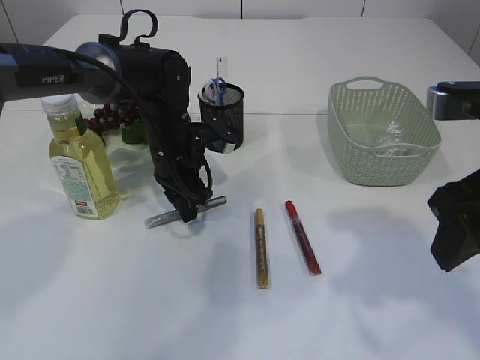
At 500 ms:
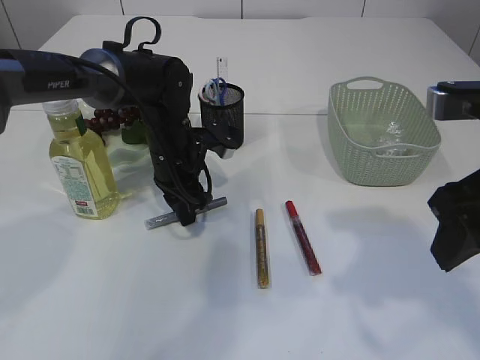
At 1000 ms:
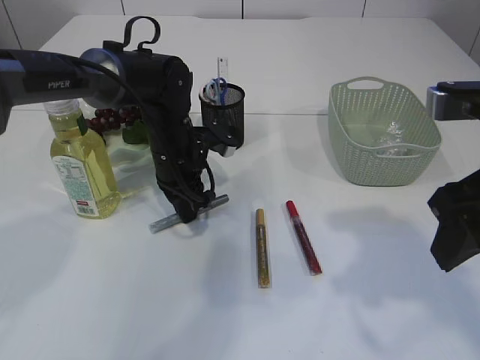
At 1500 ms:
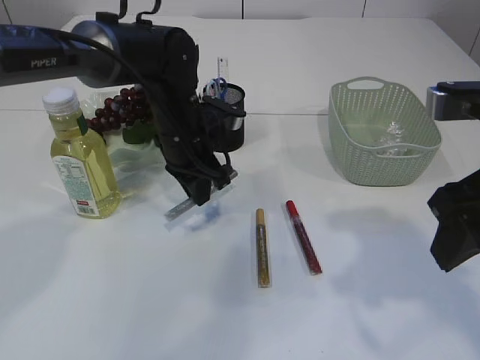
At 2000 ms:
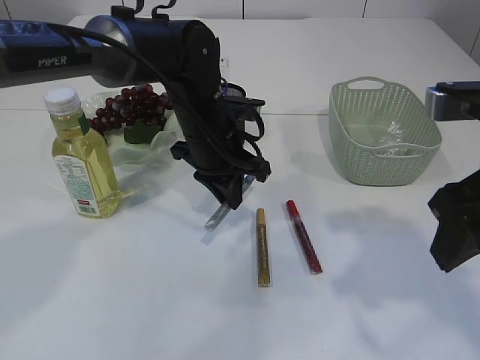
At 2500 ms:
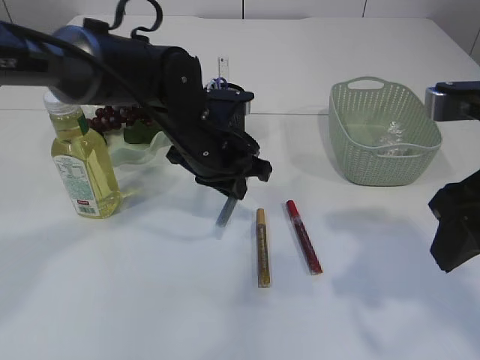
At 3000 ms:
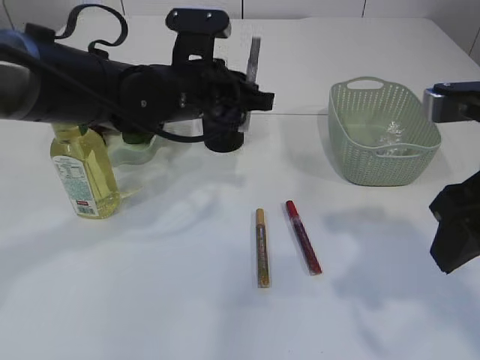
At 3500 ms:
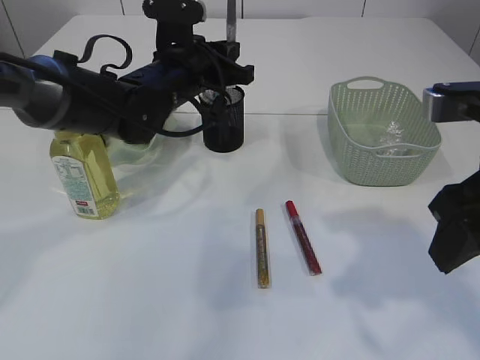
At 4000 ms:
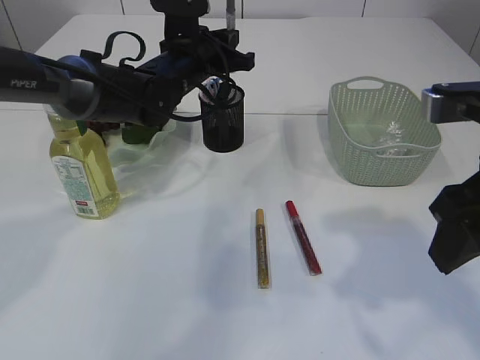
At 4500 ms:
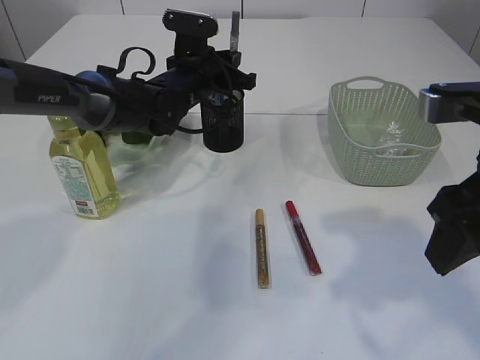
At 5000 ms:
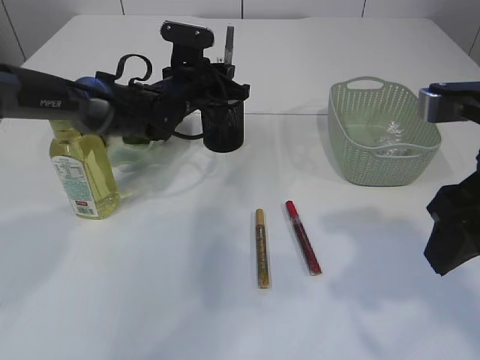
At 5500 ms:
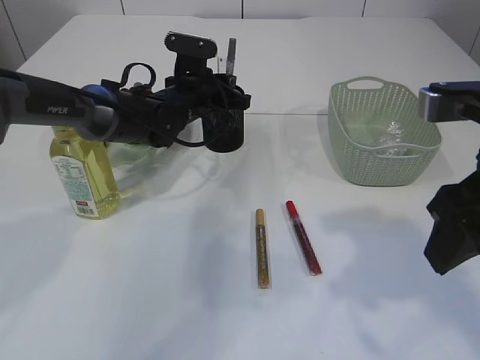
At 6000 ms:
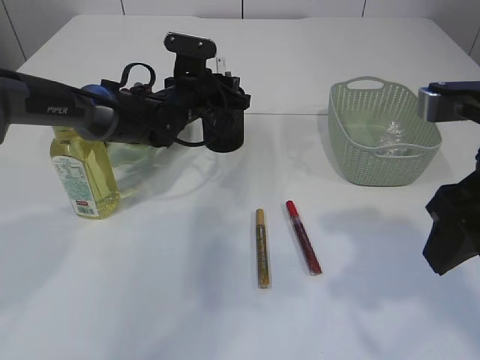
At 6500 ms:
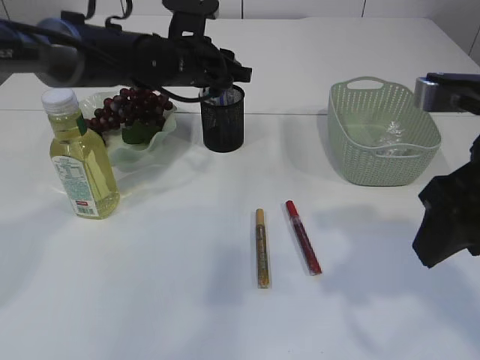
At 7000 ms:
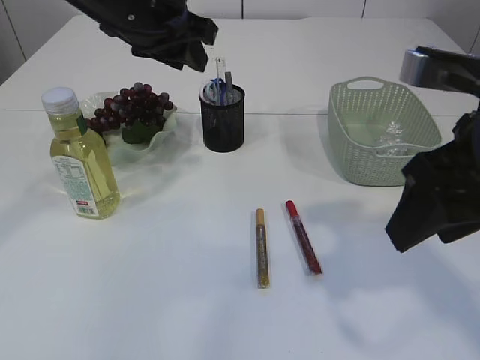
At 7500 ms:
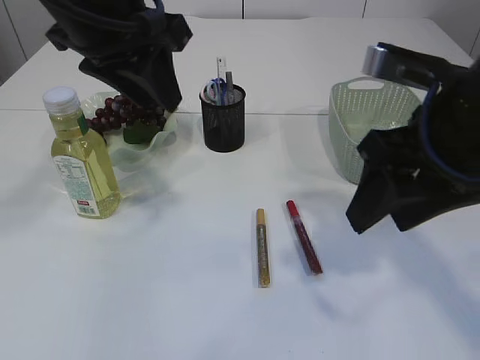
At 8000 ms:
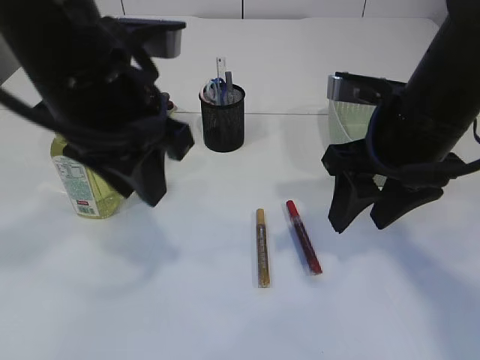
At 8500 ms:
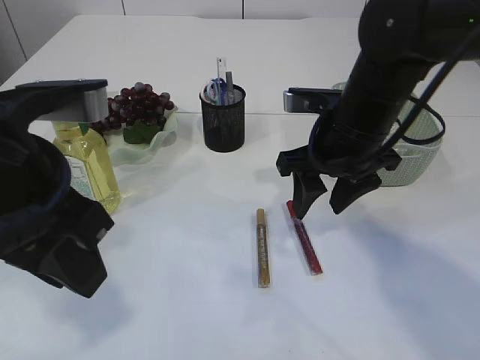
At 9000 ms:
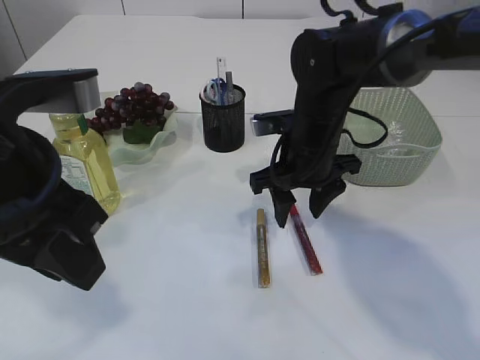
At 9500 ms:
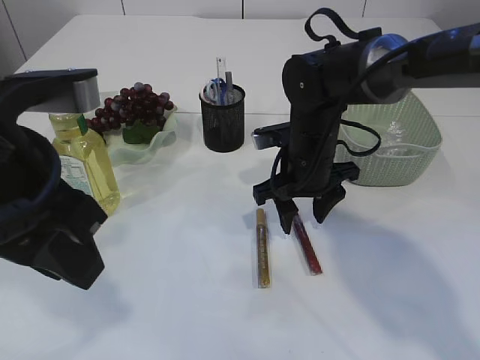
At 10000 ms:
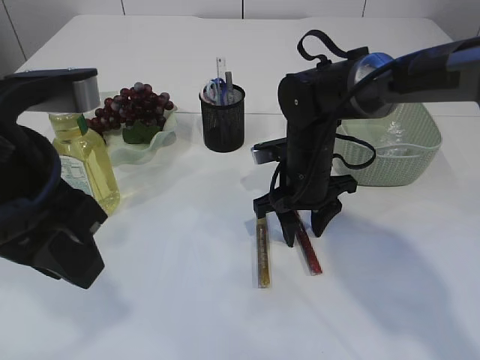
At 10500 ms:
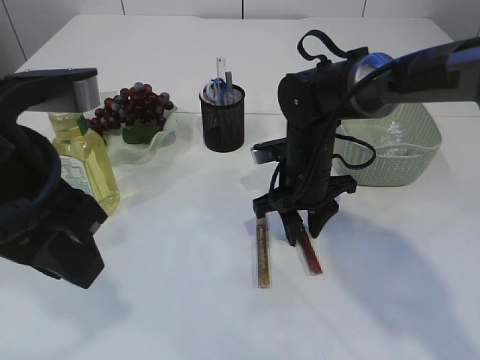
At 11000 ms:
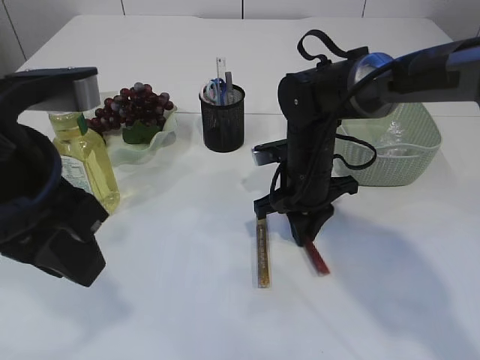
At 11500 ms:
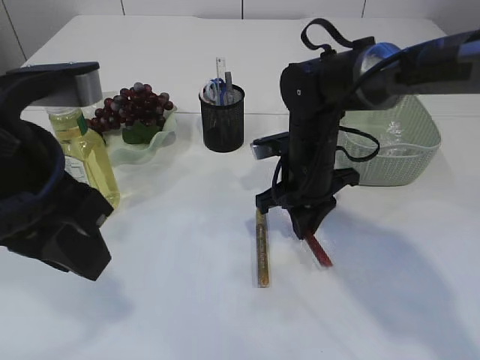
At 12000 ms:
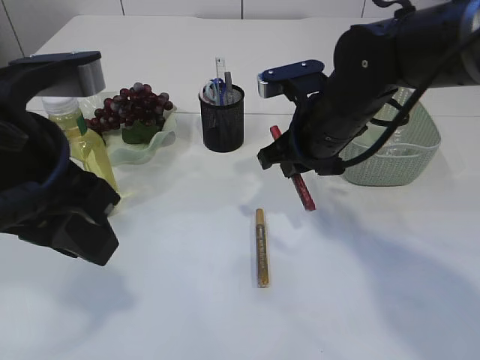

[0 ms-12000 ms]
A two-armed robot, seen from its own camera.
Step, 2000 ms to 6500 ms: place the silver glue into the pen holder.
Step, 7000 ms to 11500 ms: pick up the red glue.
0 ms to 2000 ms: The left gripper shifts approximately 5 cm to the right, and closes its fingers.
2000 ms to 4000 ms: The left gripper moves forward, some 10 cm.
4000 ms to 6000 ms: The left gripper moves downward, roughly 5 cm, and opens up.
6000 ms to 8000 ms: The right gripper travels forward by approximately 10 cm. The left gripper goes roughly 30 cm backward and upward.
8000 ms to 10000 ms: The right gripper heads downward, forward and to the left, covering about 20 cm, while the left gripper moves backward, roughly 5 cm.
10000 ms to 12000 ms: The right gripper heads upward, covering roughly 10 cm, and closes up.

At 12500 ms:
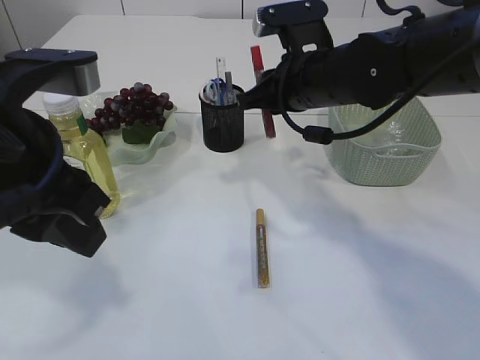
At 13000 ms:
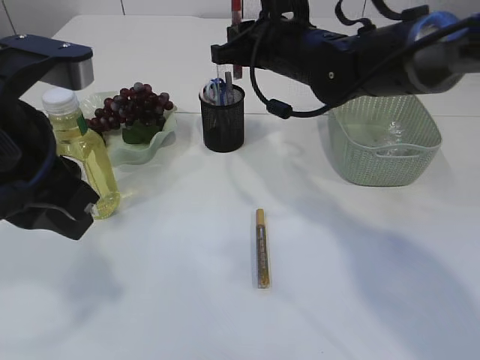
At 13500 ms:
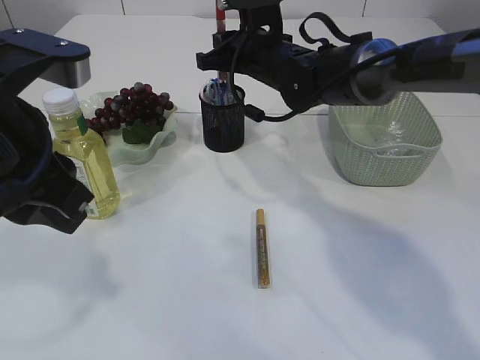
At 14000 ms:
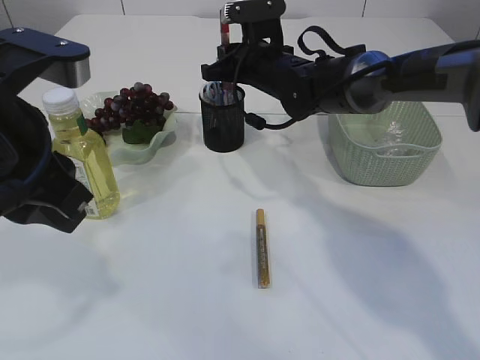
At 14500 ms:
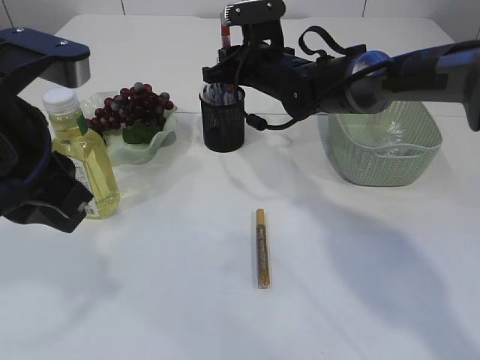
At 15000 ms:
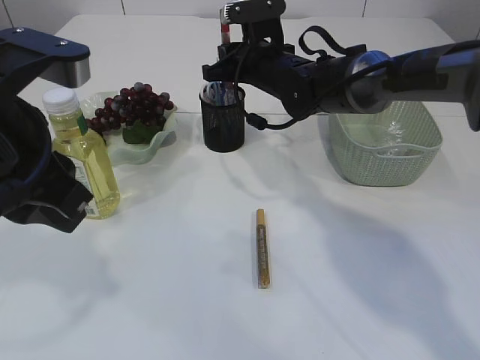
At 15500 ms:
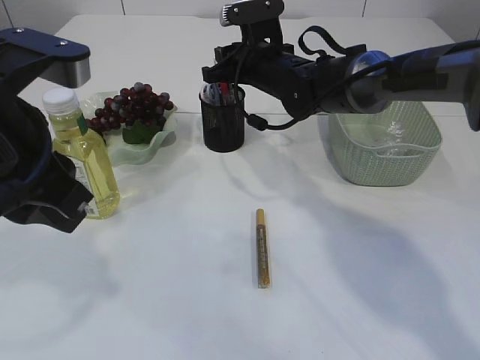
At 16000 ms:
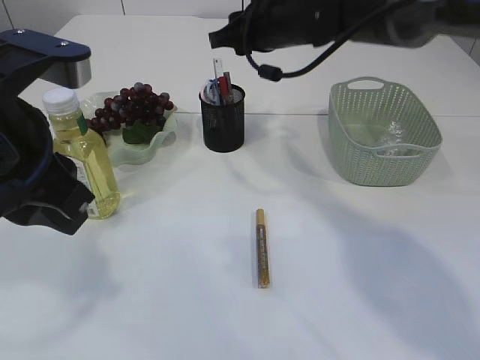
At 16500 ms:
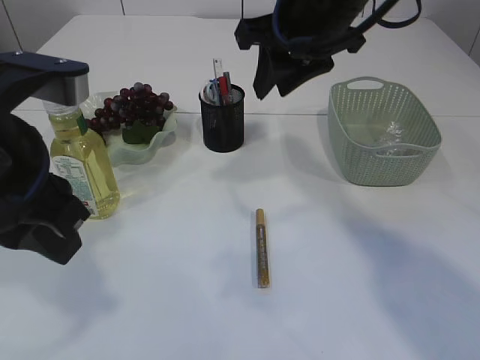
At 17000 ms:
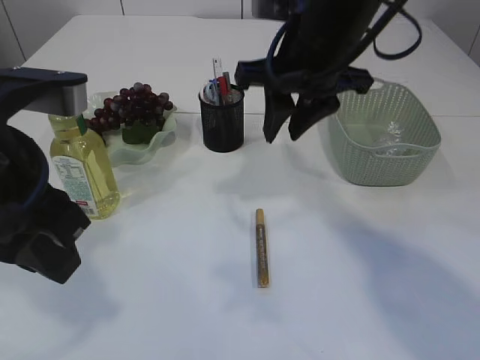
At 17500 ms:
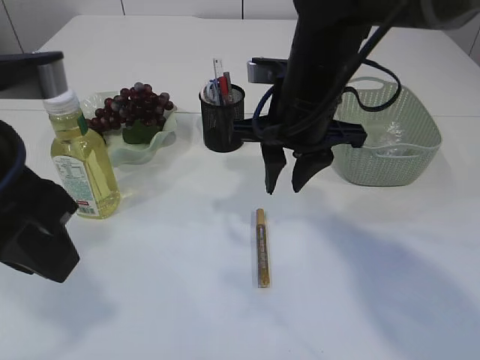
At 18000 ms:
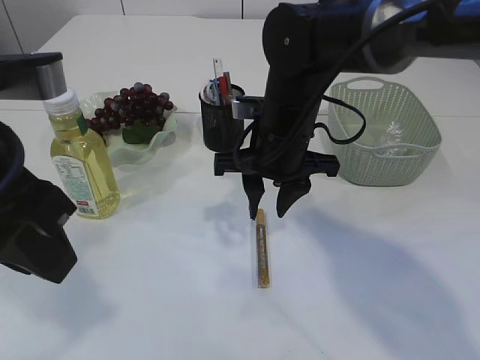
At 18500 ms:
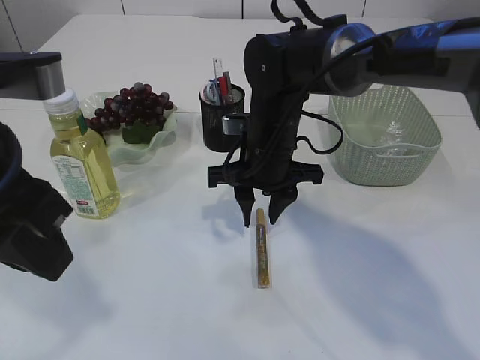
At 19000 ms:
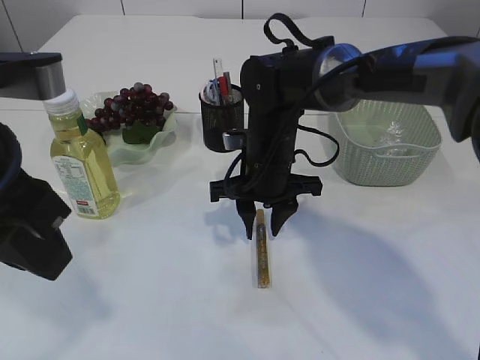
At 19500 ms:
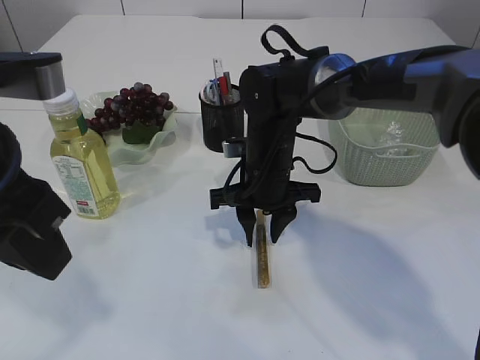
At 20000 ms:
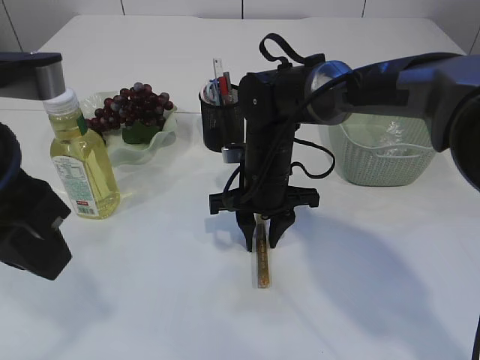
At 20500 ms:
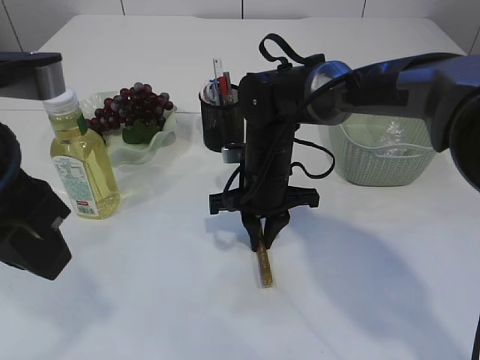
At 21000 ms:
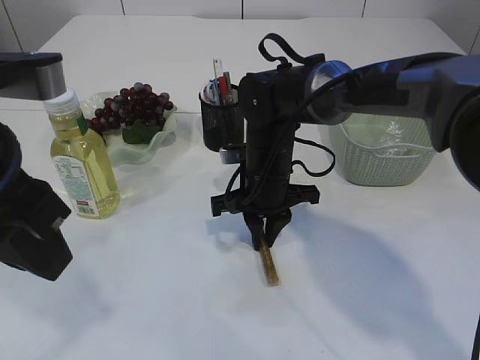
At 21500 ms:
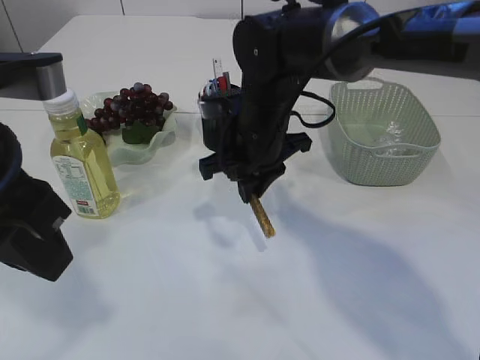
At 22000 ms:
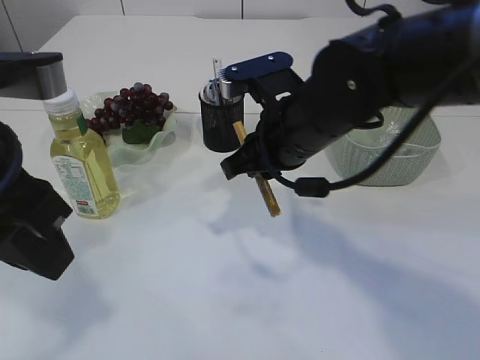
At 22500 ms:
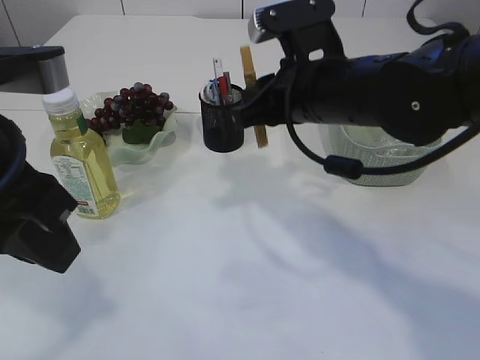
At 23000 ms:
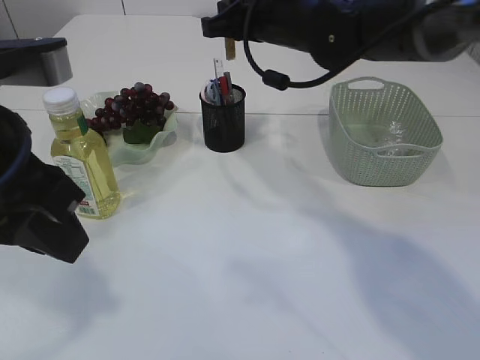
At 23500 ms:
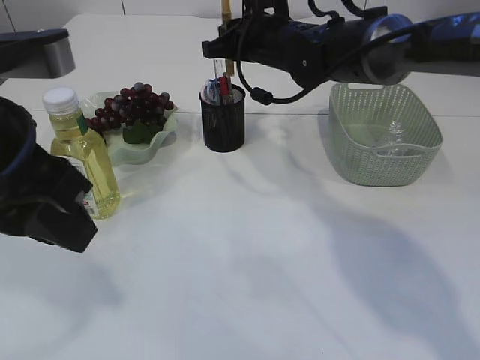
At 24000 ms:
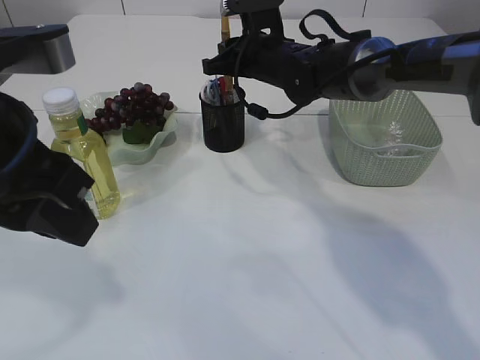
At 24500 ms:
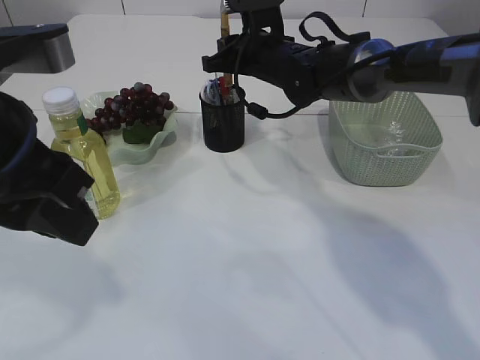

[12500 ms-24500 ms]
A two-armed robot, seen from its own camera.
Step, 12500 ms to 16000 ms: place the red glue into the pen holder.
Step, 16500 ms to 21500 ms: pick up the yellow glue.
12500 ms to 14500 ms: The right gripper shifts some 10 cm forward.
14500 ms to 16500 ms: The right gripper moves upward and backward, roughly 20 cm.
16500 ms to 18500 ms: The right gripper is displaced downward by some 15 cm.
18500 ms to 20500 ms: There are only small adjustments of the grippers.
20500 ms to 22500 ms: The right gripper travels upward and backward by roughly 15 cm.
22500 ms to 24500 ms: The right gripper is displaced forward by some 15 cm.

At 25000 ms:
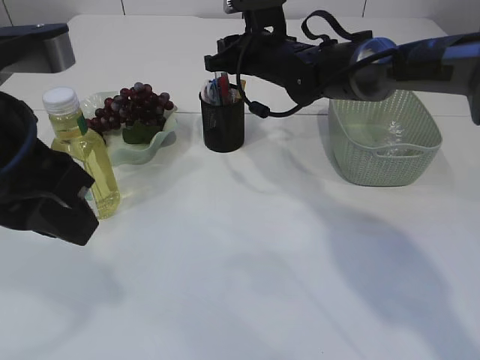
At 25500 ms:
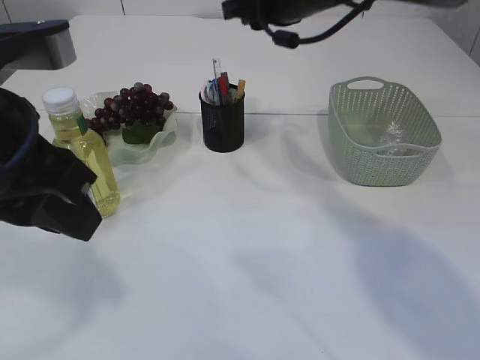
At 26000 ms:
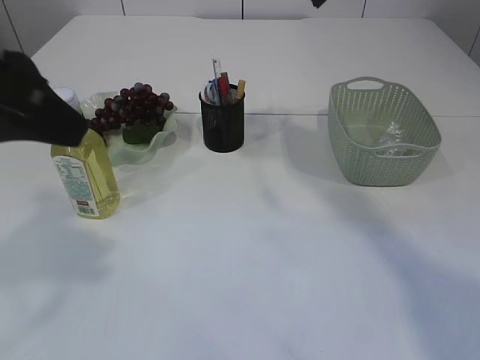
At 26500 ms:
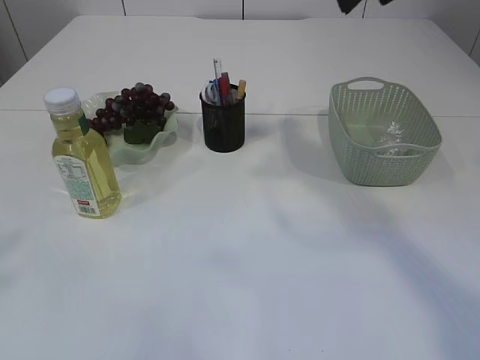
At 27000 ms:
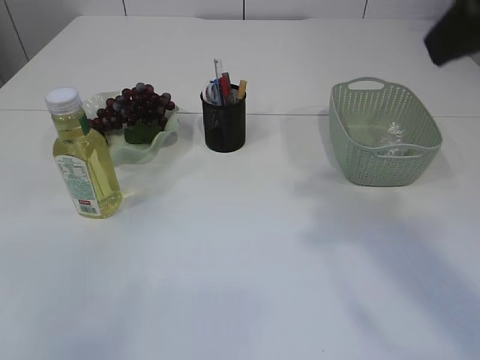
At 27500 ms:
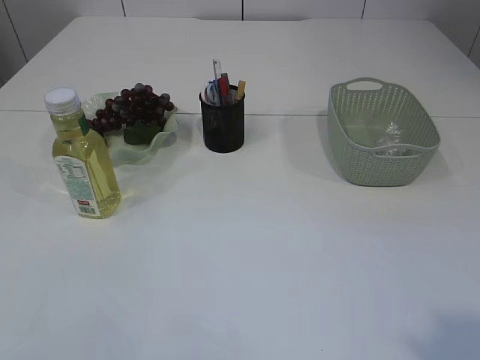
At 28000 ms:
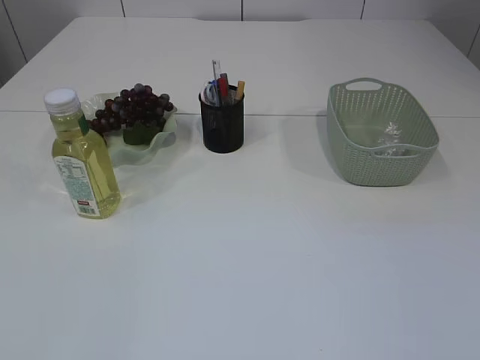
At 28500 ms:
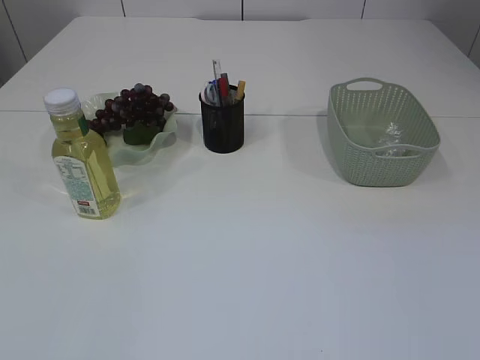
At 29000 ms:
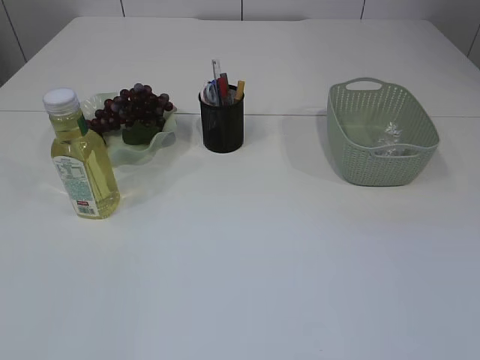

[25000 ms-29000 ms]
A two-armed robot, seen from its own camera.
25000 ms to 27000 ms: The right gripper is displaced backward, upward and to the right by about 40 cm, while the left gripper shifts some 25 cm to the left and backward.
27000 ms to 29000 ms: The right gripper moves backward and downward, approximately 25 cm. Meanwhile the left gripper is displaced downward and backward by about 10 cm.
